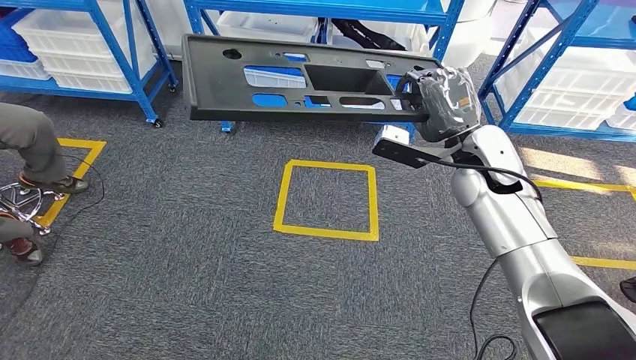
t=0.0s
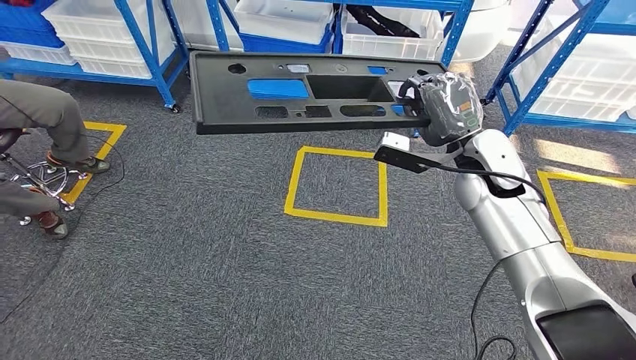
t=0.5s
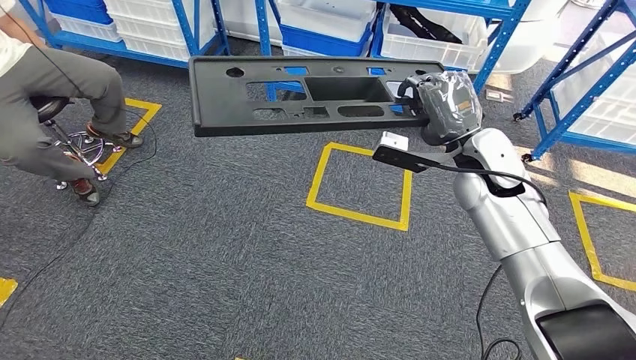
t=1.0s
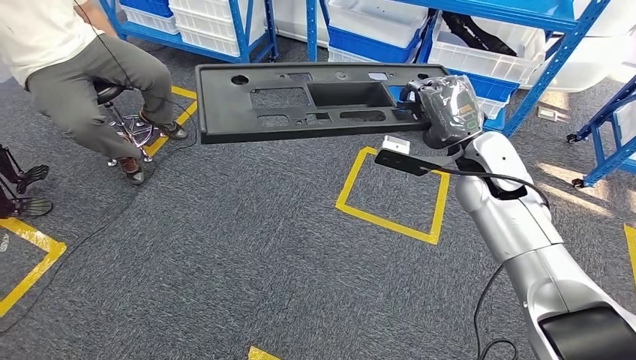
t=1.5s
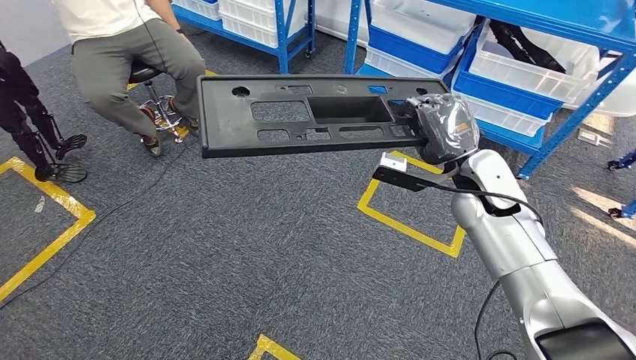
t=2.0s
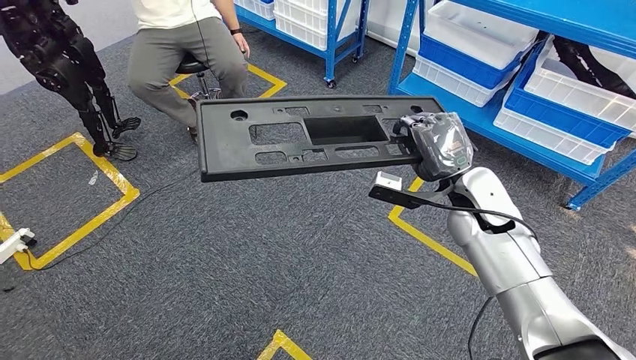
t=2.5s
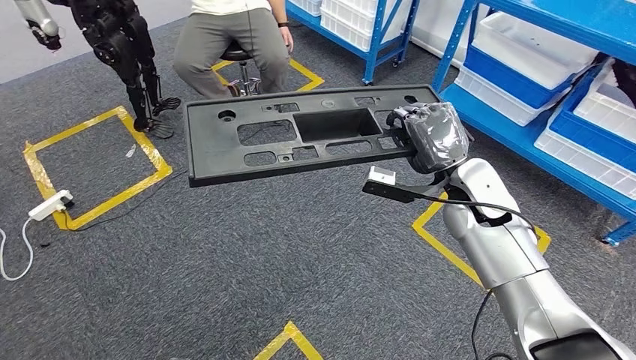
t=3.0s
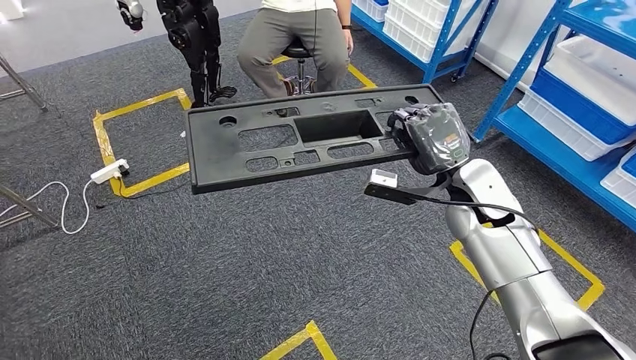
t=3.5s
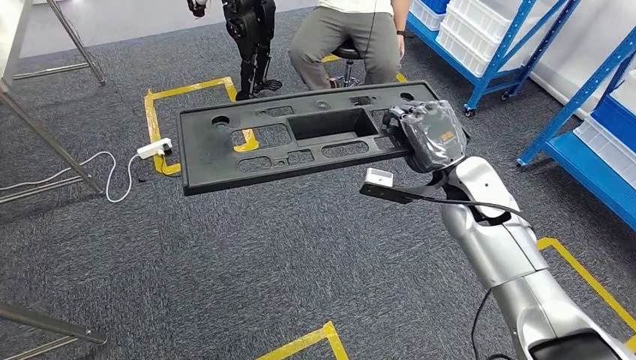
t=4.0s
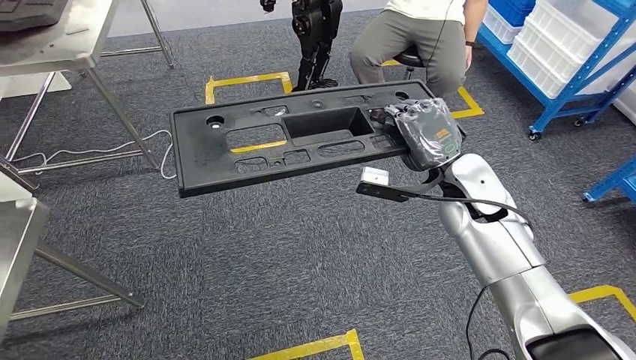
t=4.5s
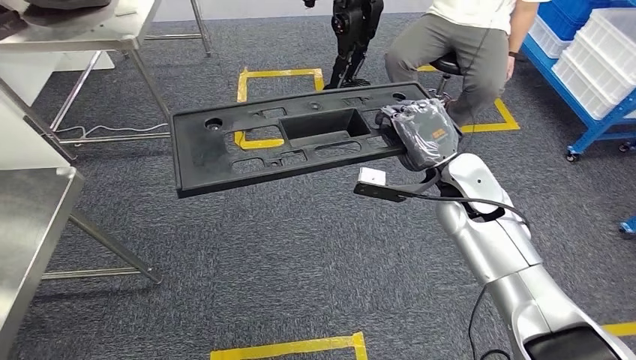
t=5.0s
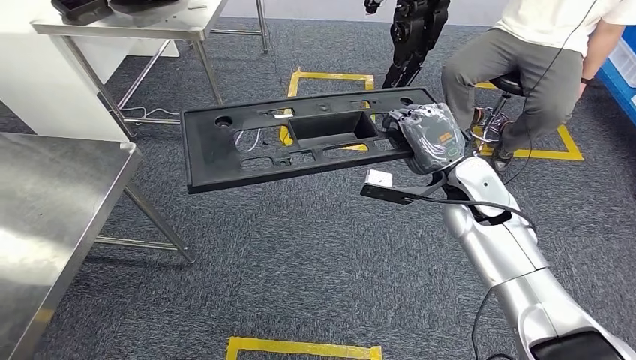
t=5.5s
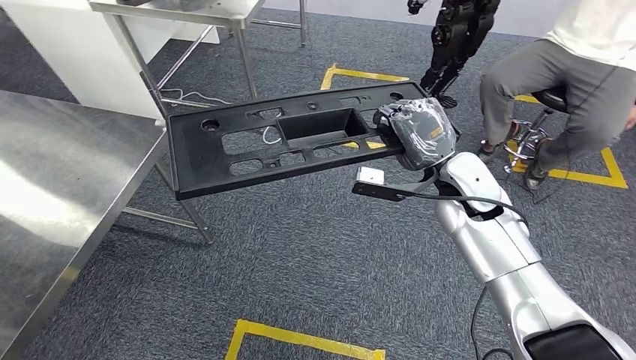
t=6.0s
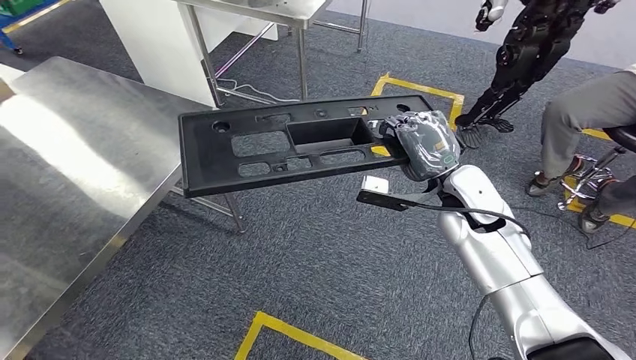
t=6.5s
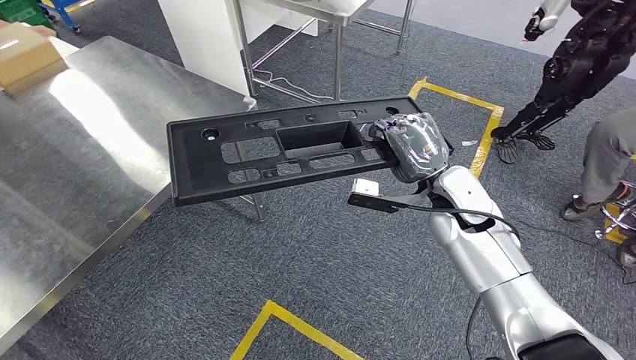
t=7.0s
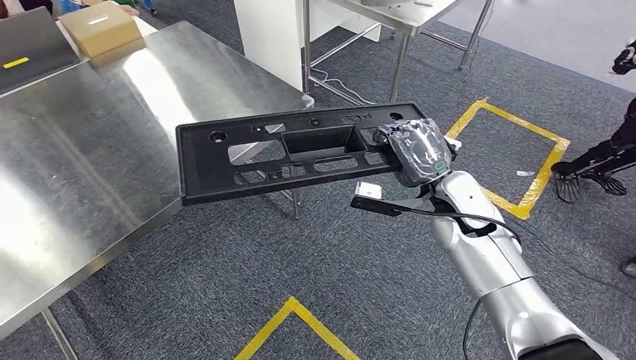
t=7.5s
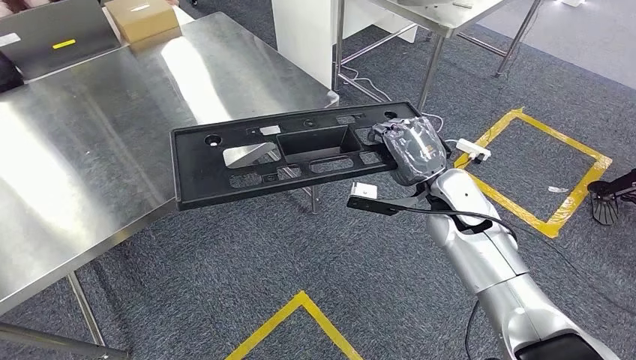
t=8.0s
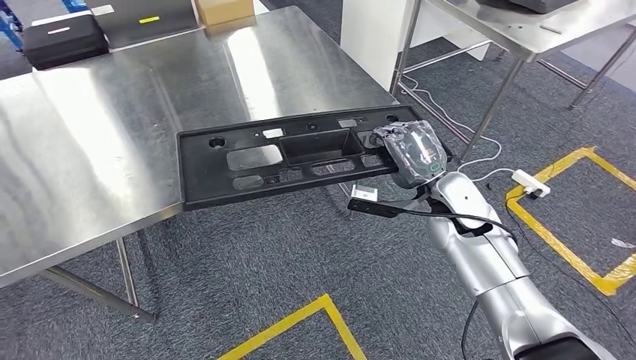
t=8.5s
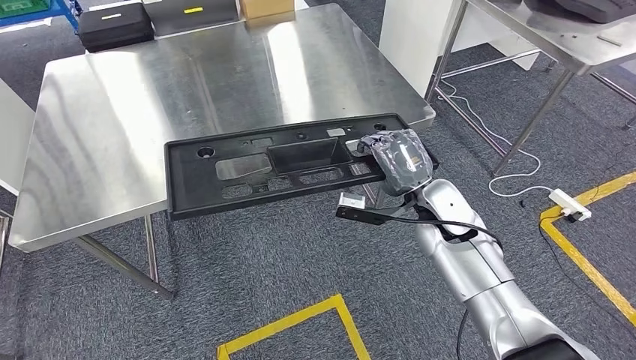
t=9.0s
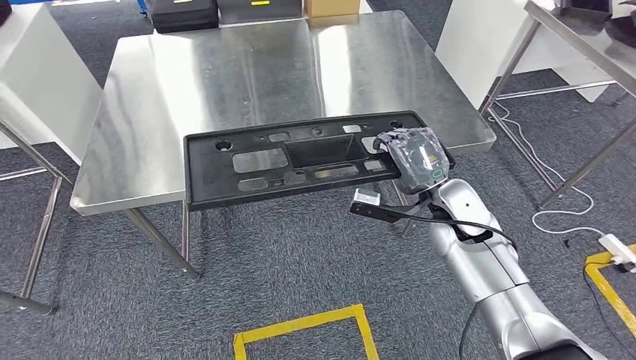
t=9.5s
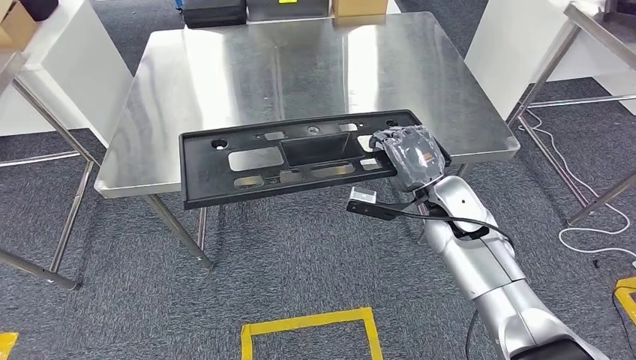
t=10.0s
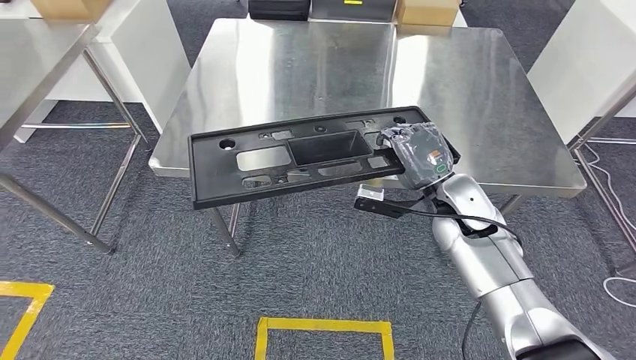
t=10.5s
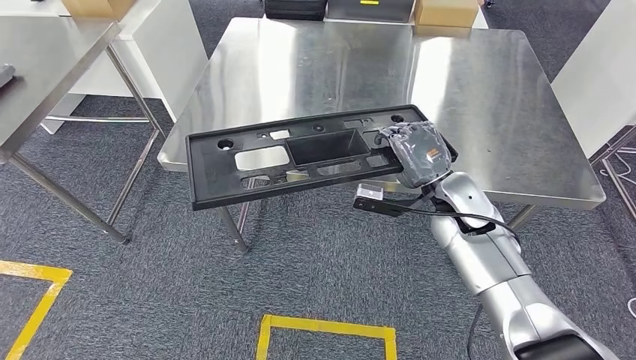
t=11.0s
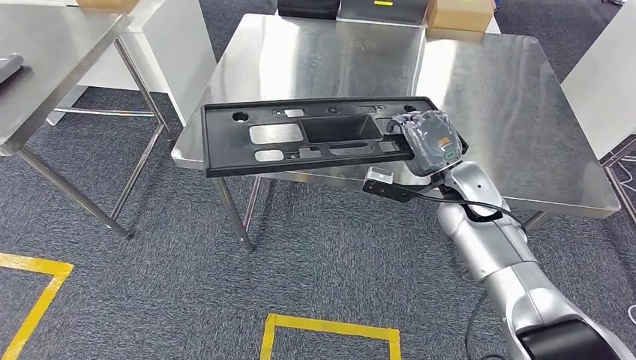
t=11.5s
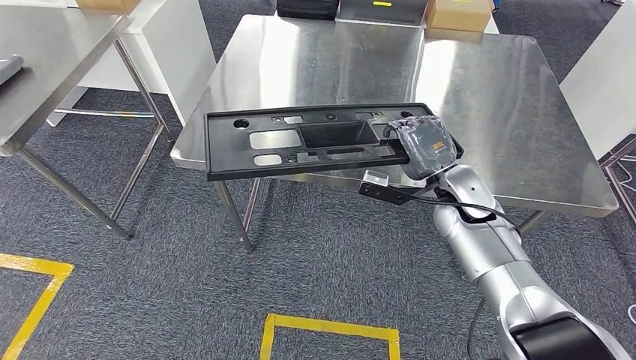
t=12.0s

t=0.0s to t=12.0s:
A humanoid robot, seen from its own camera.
Step, t=0.0s to t=11.0s: Move the large material to the workbench.

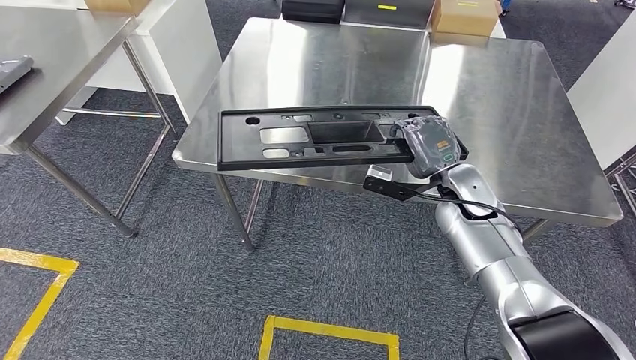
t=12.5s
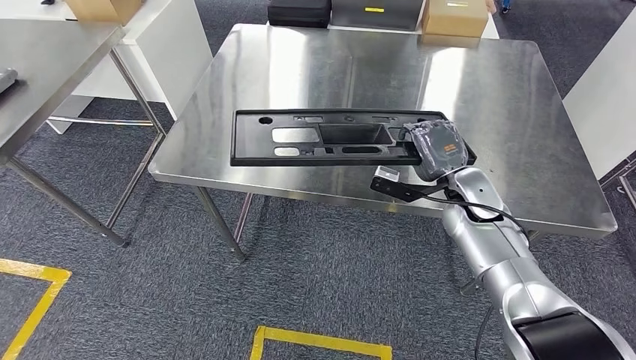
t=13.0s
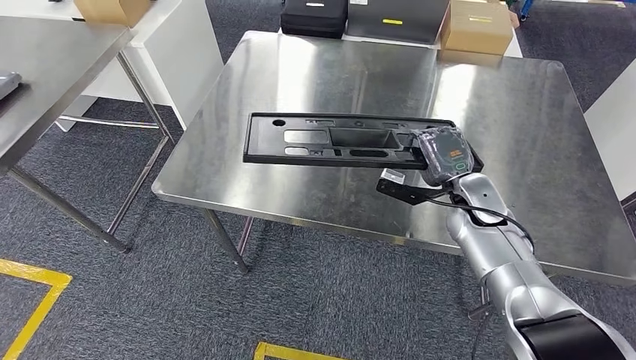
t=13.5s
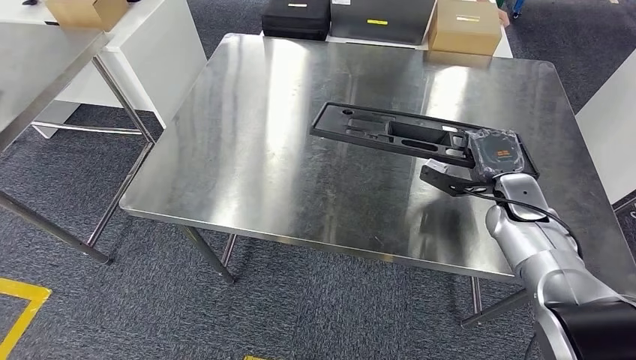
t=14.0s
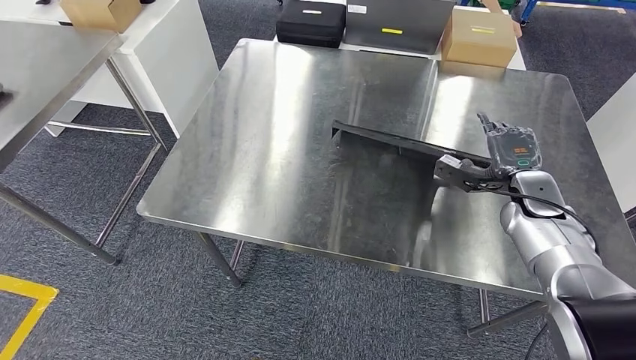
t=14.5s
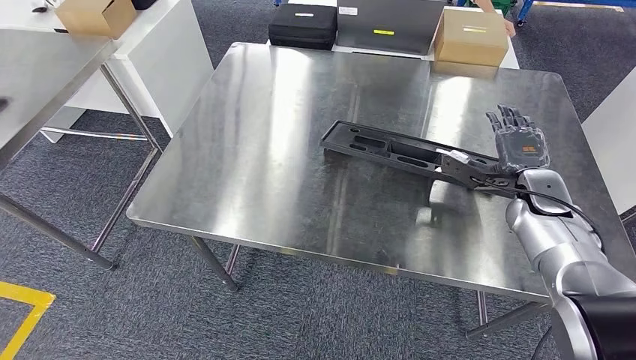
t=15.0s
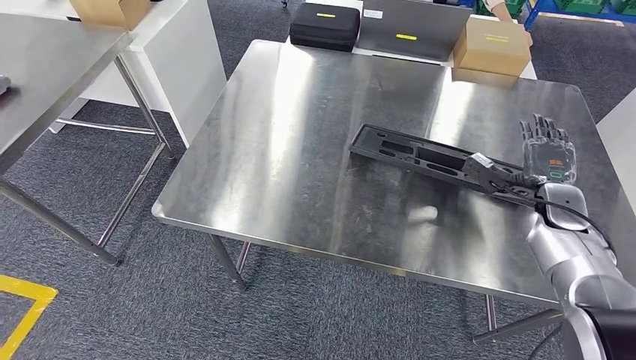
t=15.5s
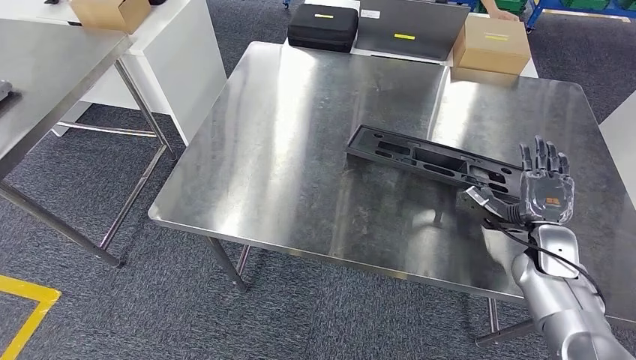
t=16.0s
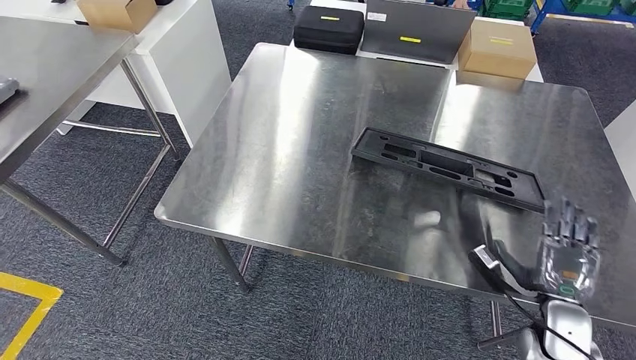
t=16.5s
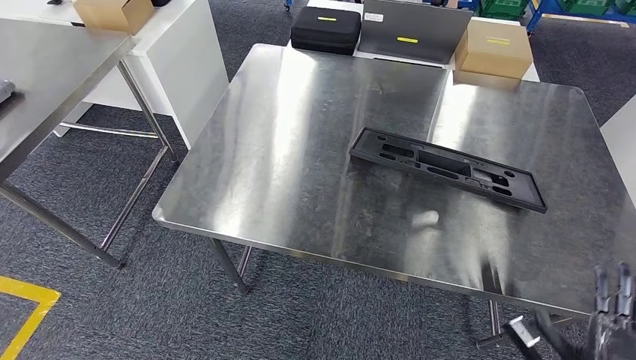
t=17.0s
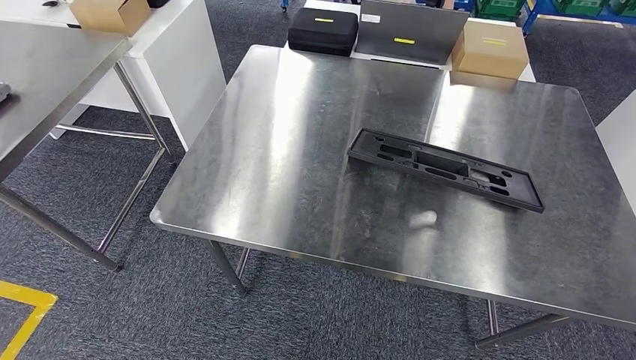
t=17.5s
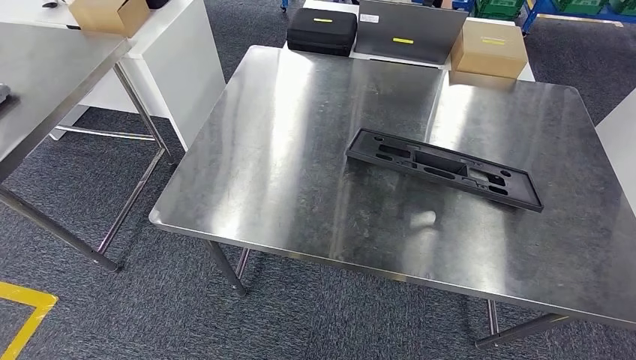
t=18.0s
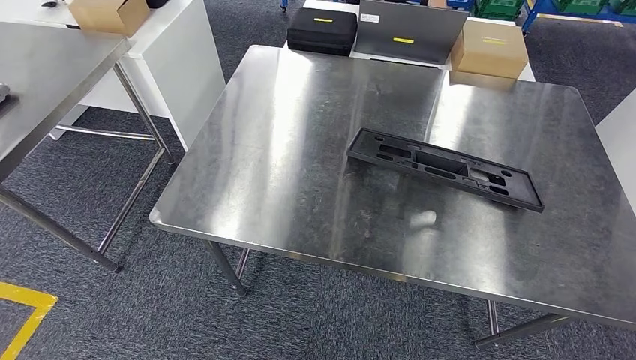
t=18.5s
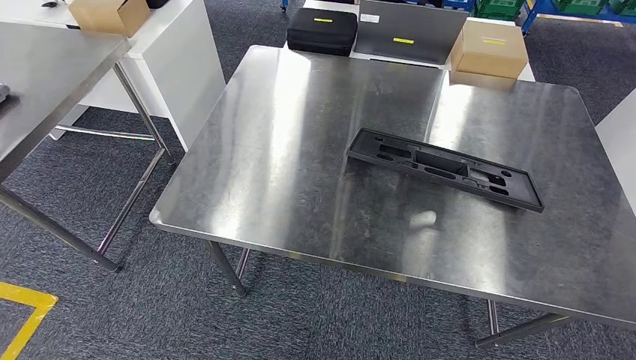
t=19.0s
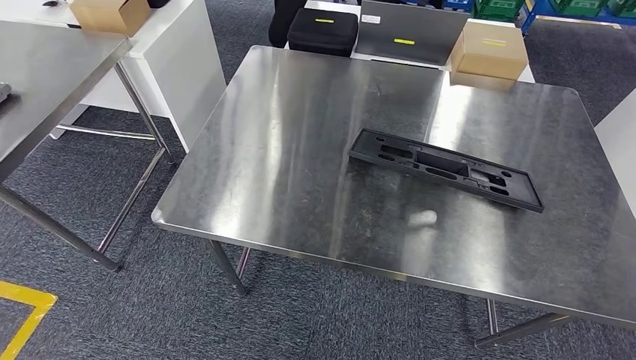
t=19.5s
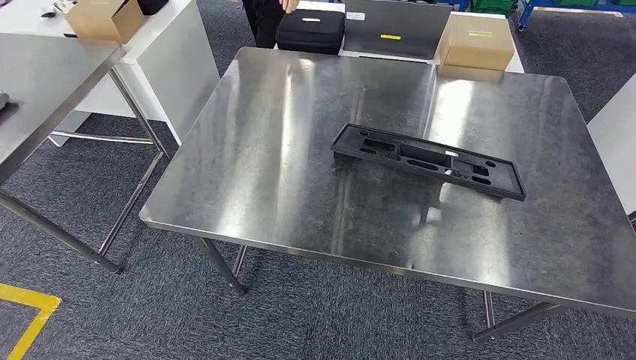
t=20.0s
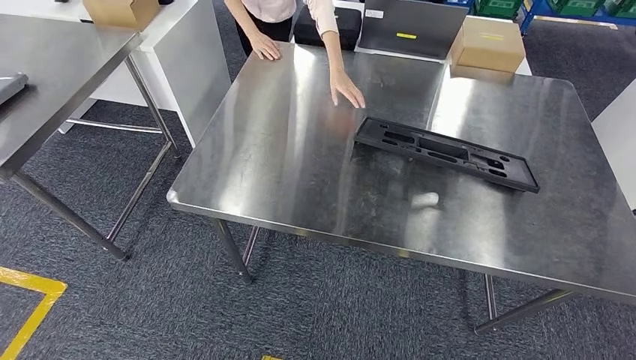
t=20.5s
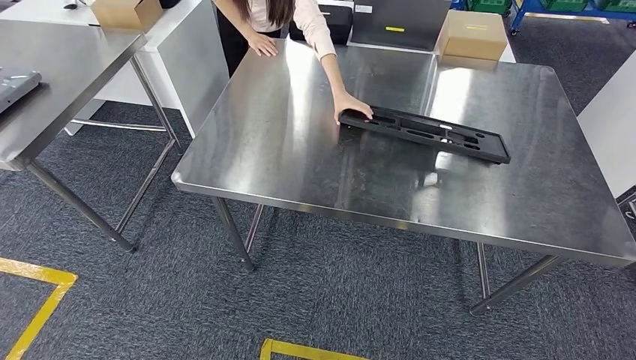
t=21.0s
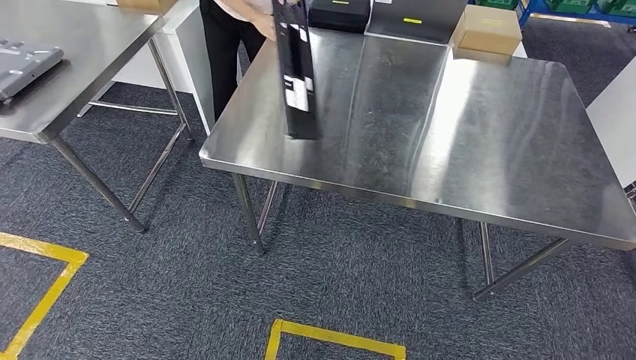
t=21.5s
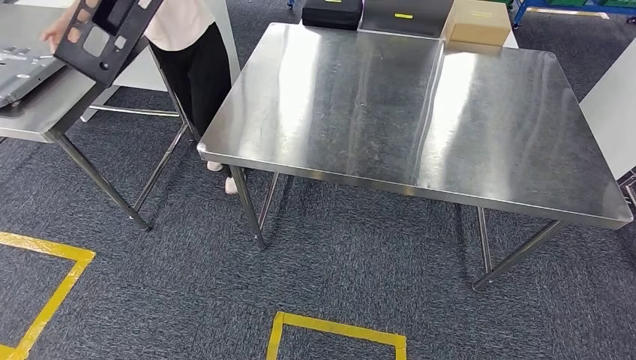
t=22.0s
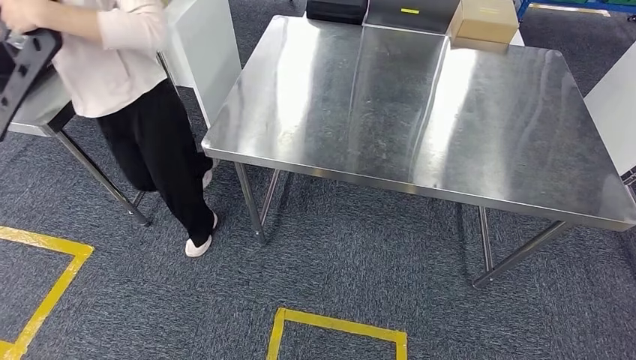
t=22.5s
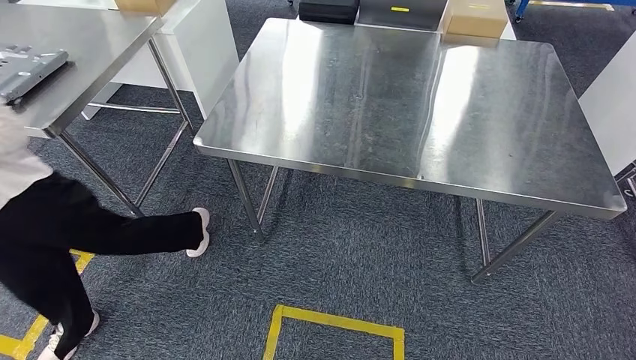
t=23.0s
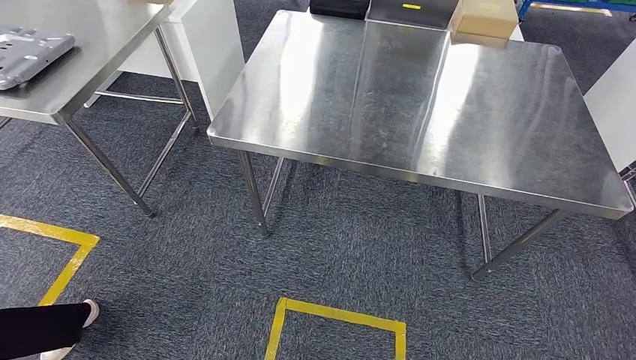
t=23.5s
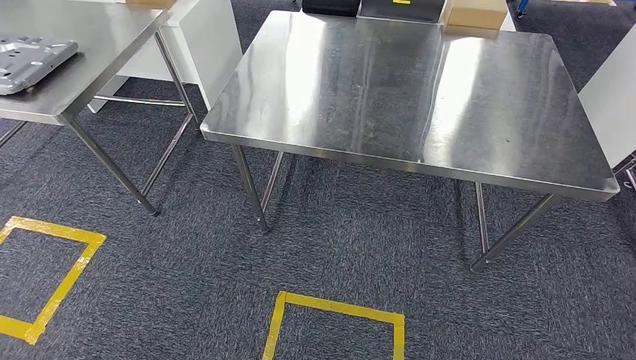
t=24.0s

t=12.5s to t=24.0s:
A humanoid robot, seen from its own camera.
Step, t=12.5s to t=17.5s: Insert the large material into the corresponding slot on the workbench.
t=16.5s to t=18.5s: The right hand moves backward, downward and to the left, some 35 cm.
